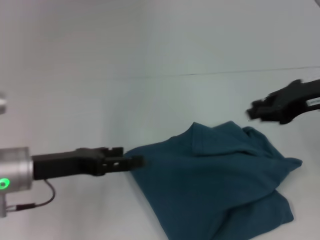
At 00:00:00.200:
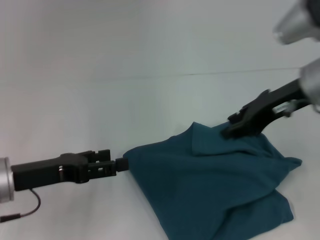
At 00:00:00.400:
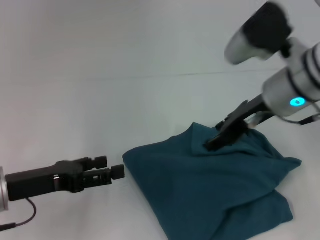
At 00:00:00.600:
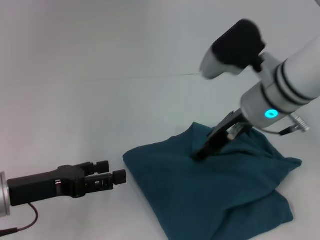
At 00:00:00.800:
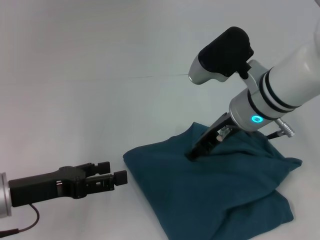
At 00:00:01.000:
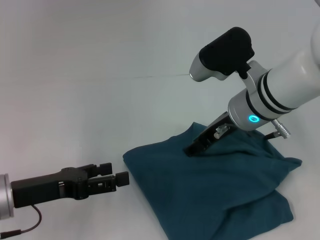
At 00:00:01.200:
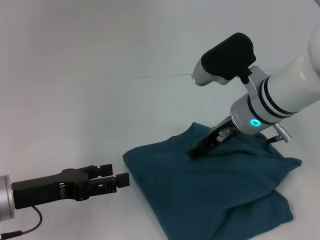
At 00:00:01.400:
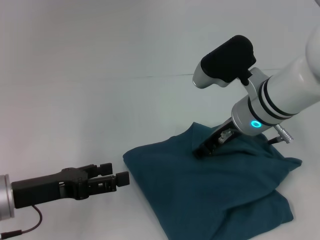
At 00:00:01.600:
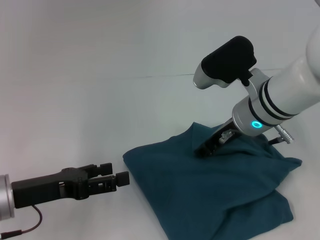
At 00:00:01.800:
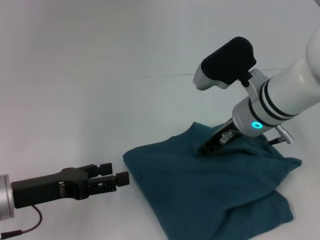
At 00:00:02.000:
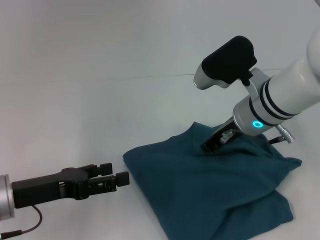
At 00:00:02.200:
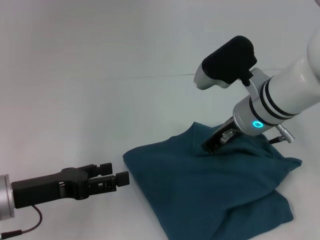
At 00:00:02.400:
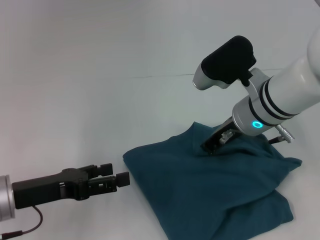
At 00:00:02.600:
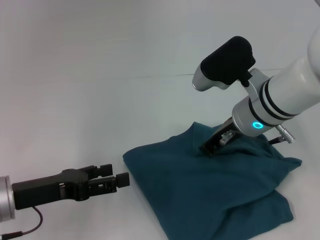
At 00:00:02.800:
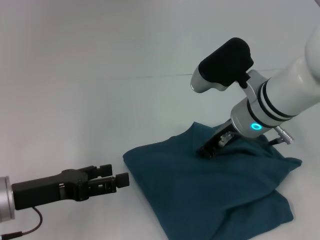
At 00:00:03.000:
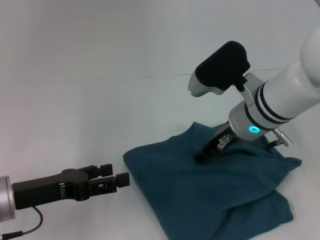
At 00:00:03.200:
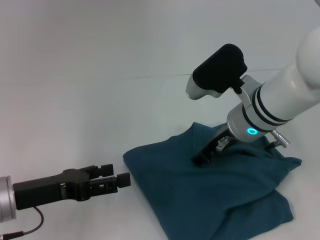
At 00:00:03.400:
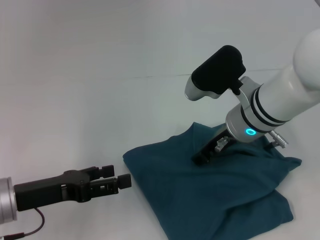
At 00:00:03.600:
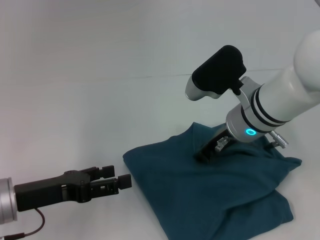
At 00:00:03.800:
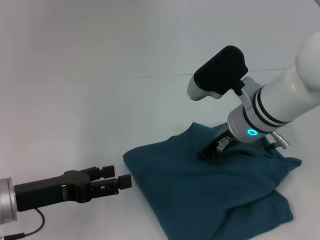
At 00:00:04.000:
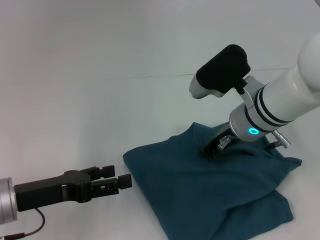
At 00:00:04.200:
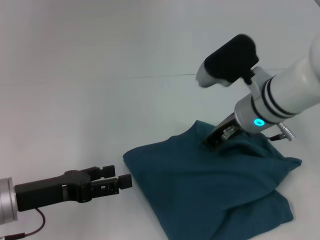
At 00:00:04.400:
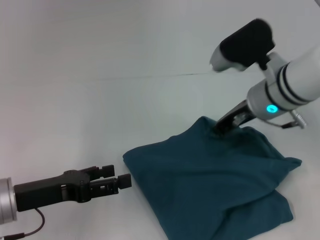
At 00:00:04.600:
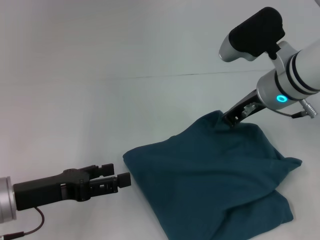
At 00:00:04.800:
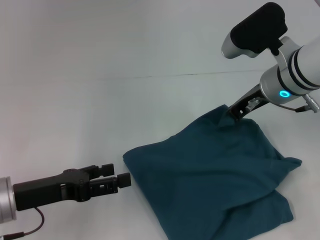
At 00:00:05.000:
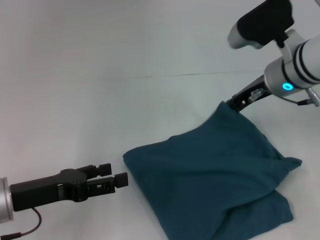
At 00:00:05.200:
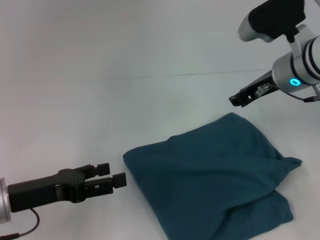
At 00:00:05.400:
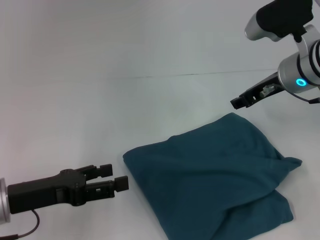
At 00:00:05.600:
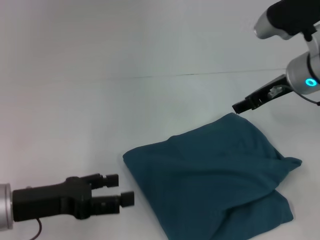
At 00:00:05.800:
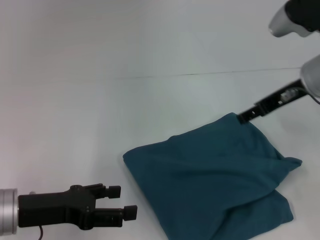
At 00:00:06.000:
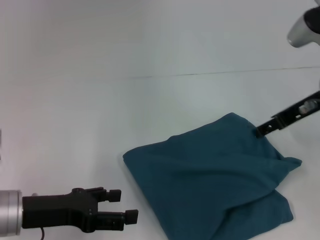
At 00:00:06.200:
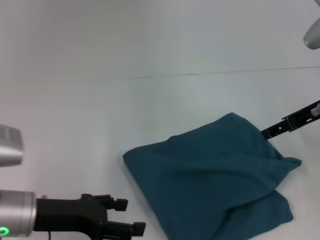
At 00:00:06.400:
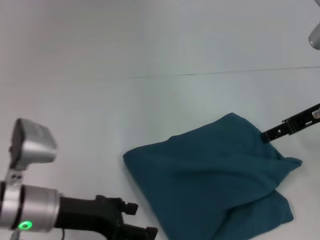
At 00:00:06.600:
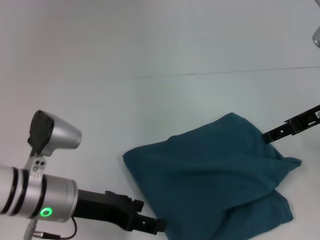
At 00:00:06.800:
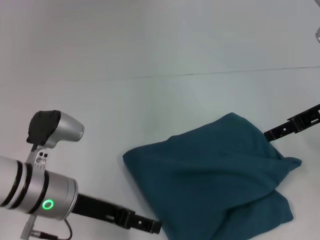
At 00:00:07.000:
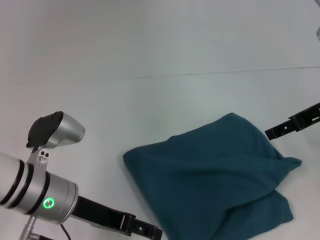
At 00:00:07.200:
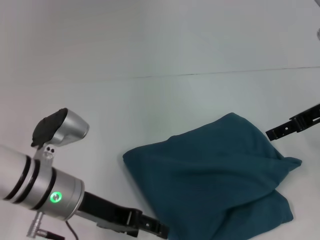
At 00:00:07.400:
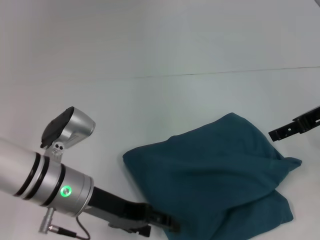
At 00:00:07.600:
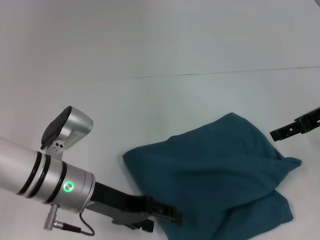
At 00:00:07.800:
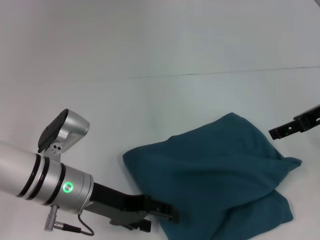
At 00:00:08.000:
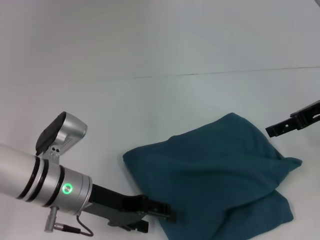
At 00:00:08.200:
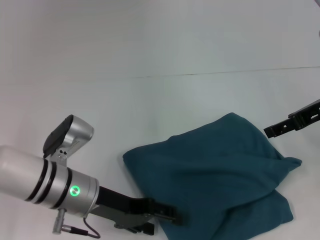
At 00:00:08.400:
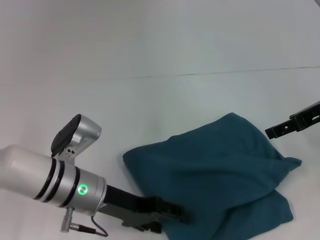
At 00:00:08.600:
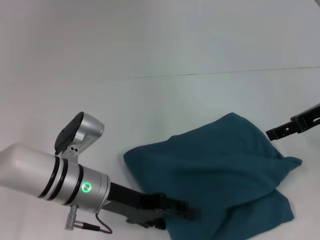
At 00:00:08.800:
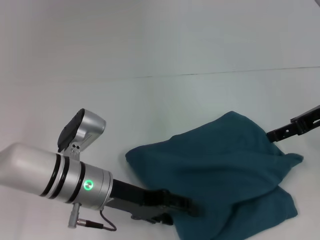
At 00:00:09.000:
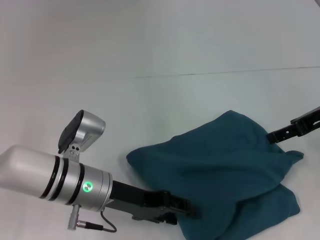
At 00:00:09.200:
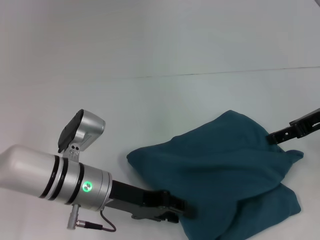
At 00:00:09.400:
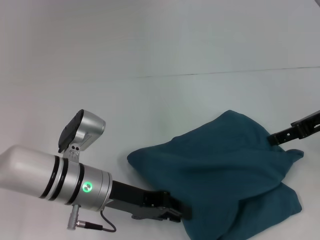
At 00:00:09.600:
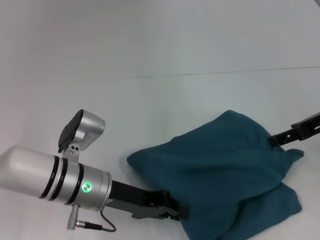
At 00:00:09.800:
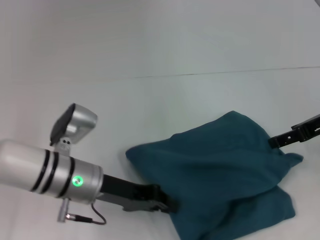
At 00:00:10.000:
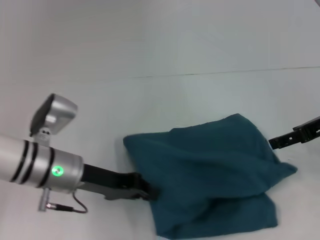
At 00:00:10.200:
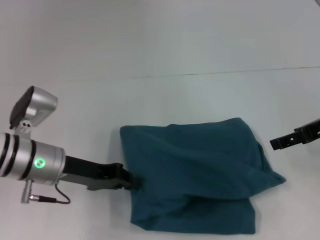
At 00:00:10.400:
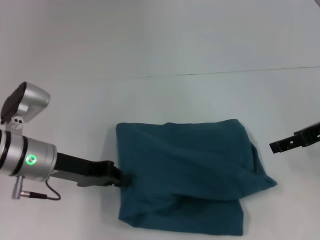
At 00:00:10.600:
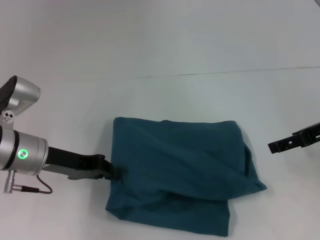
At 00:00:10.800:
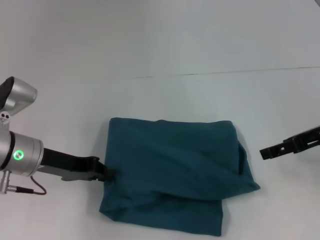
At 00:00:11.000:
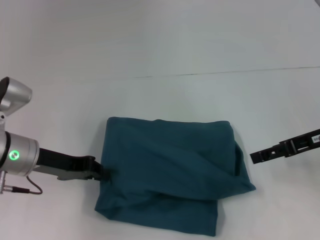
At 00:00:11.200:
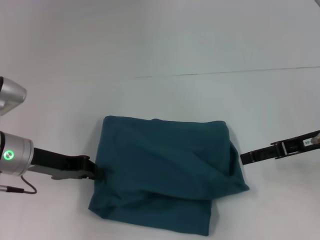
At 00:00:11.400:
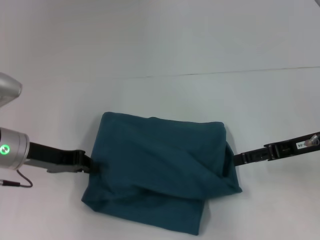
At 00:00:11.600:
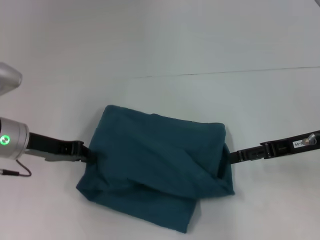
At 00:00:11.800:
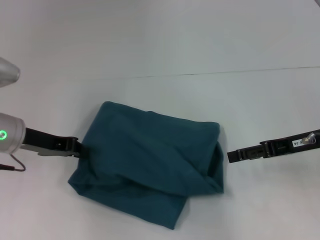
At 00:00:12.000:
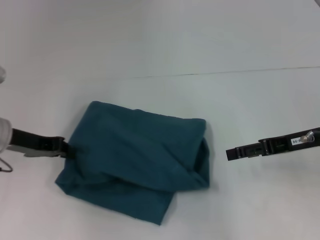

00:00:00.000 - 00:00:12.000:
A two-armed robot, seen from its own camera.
00:00:00.000 - 00:00:01.600: The right gripper shifts some 15 cm to the left and downward, and opens.
00:00:01.600 - 00:00:03.000: The right gripper closes up.
00:00:03.000 - 00:00:04.400: The grippers stay close to where they were, moving slightly.
00:00:04.400 - 00:00:06.000: The right gripper goes roughly 10 cm to the right, and opens its fingers.
00:00:06.000 - 00:00:07.600: The left gripper goes roughly 10 cm to the right.
00:00:07.600 - 00:00:09.000: The grippers make only small movements.
00:00:09.000 - 00:00:10.400: The left gripper travels to the left by approximately 5 cm, and closes.
00:00:10.400 - 00:00:12.000: The left gripper moves to the left, about 5 cm.

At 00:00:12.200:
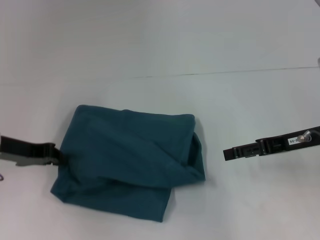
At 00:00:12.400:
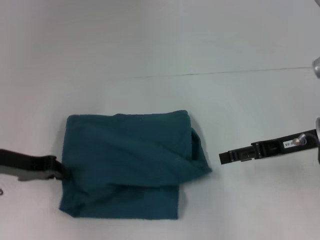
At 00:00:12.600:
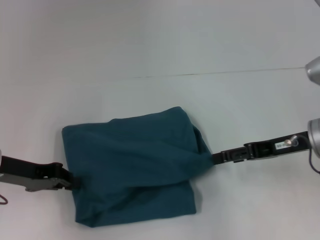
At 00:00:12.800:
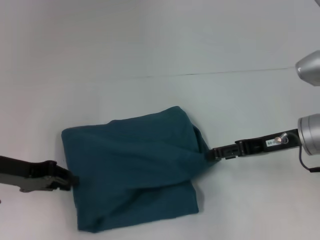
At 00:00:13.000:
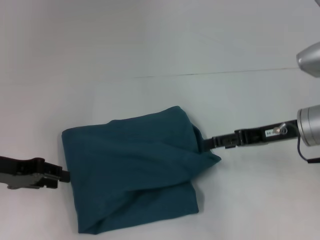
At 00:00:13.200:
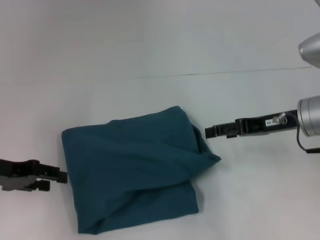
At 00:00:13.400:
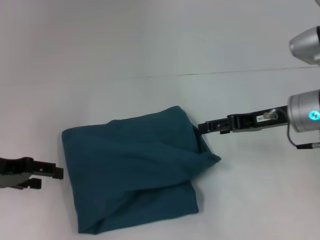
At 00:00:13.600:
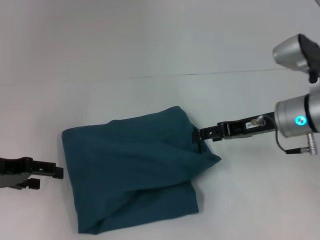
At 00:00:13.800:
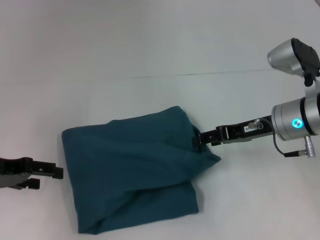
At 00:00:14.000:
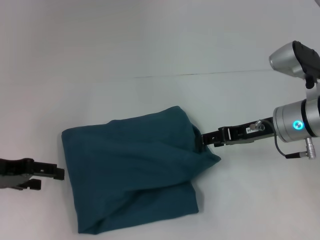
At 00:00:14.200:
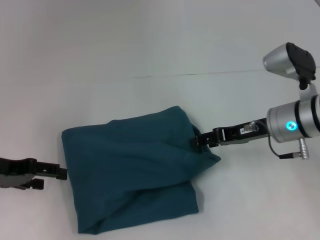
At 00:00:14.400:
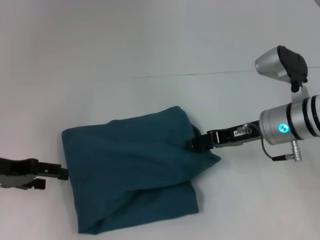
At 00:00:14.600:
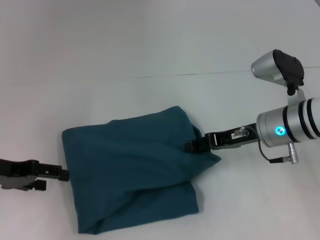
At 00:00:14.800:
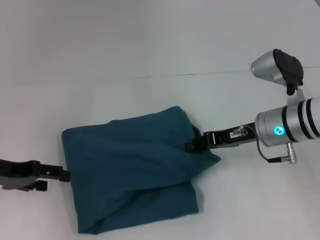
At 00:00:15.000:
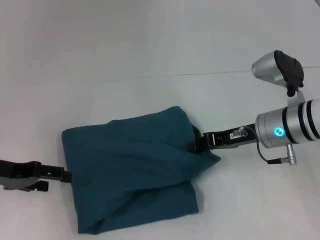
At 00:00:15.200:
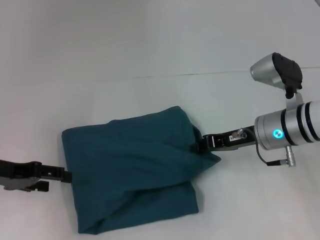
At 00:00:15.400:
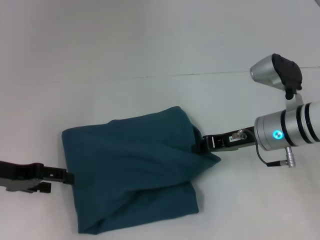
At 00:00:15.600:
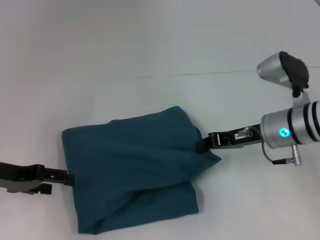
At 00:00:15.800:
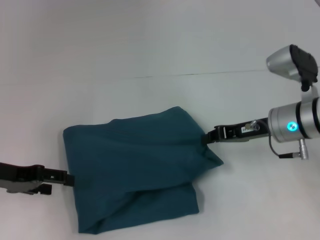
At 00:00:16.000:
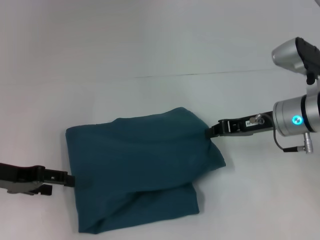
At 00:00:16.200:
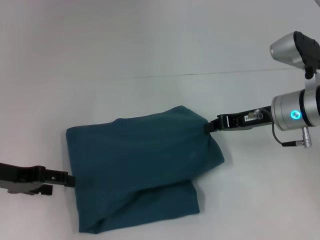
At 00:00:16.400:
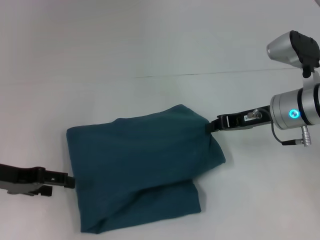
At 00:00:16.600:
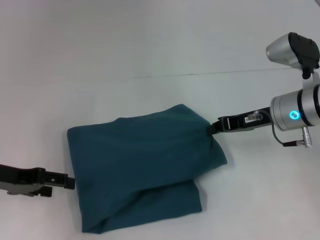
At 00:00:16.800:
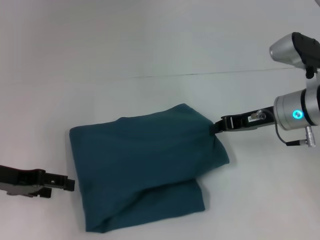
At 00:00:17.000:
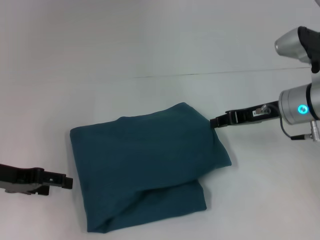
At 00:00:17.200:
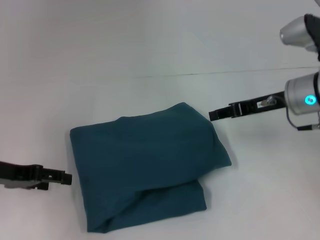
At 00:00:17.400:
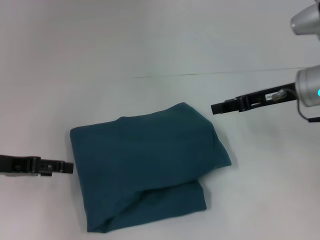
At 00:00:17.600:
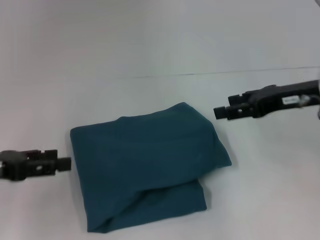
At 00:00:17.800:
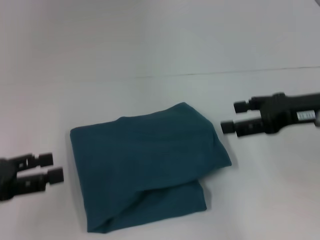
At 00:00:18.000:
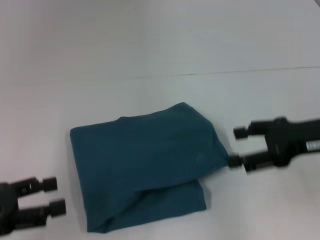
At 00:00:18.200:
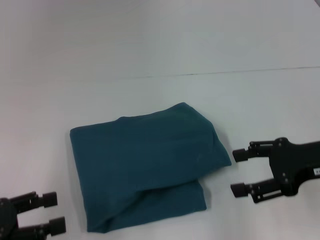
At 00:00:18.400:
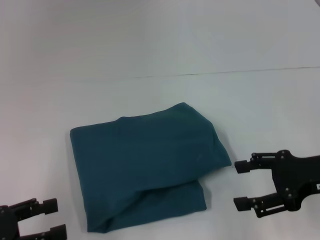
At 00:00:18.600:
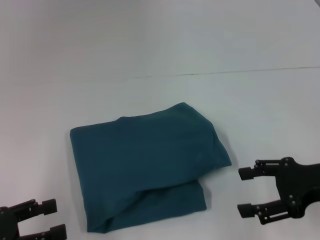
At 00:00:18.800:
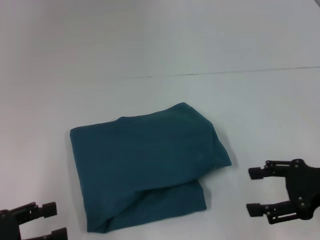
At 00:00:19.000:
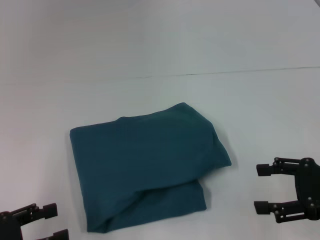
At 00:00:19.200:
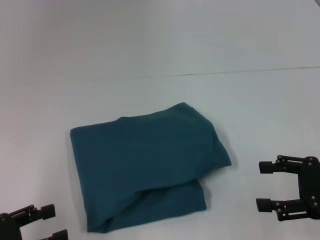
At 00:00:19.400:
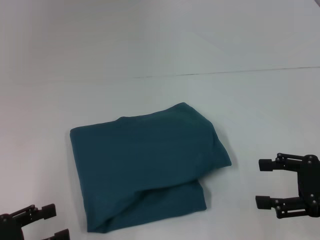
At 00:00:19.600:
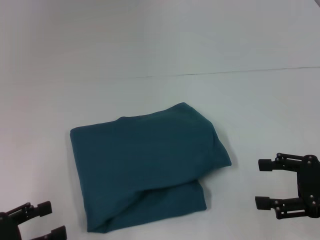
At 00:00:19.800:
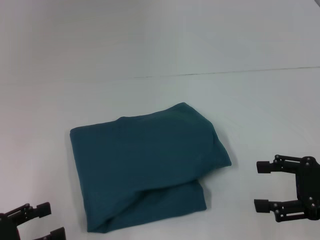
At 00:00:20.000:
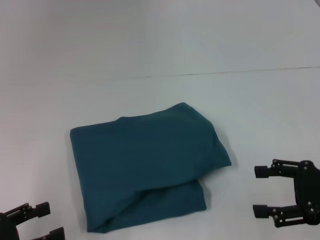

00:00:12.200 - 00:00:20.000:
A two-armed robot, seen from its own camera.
00:00:12.200 - 00:00:13.800: The left gripper shifts by about 5 cm, and opens. Meanwhile the right gripper moves to the left, about 5 cm.
00:00:13.800 - 00:00:15.400: The right gripper closes its fingers.
00:00:15.400 - 00:00:16.800: The grippers move only a little.
00:00:16.800 - 00:00:18.400: The left gripper shifts roughly 15 cm backward. Meanwhile the right gripper is displaced backward and to the right by roughly 15 cm, and opens its fingers.
00:00:18.400 - 00:00:20.000: There are only small adjustments of the grippers.
